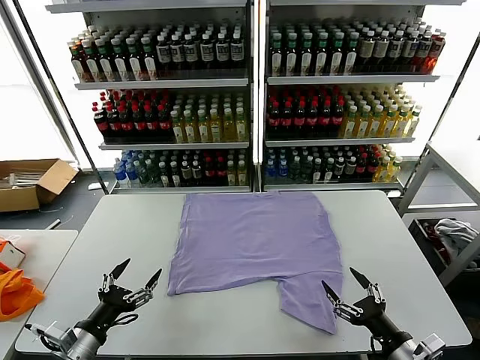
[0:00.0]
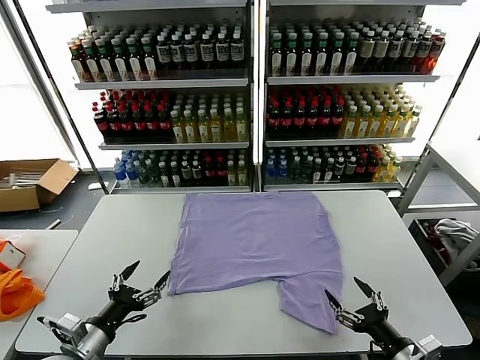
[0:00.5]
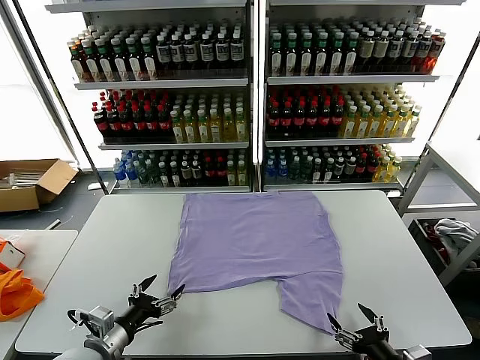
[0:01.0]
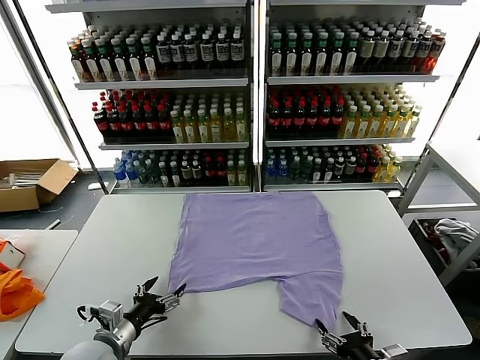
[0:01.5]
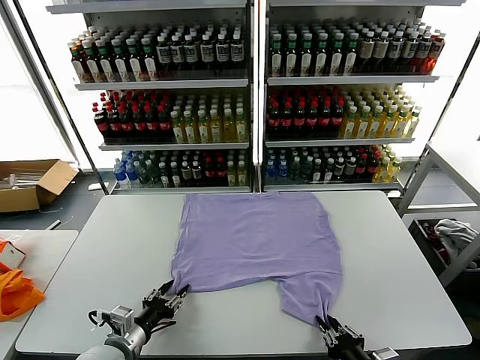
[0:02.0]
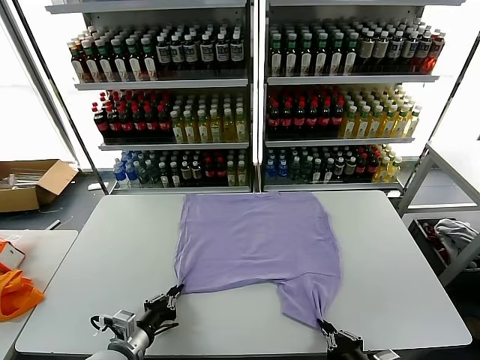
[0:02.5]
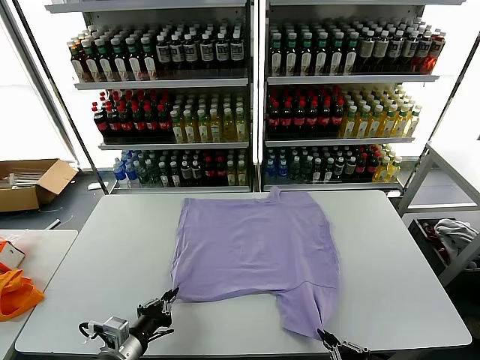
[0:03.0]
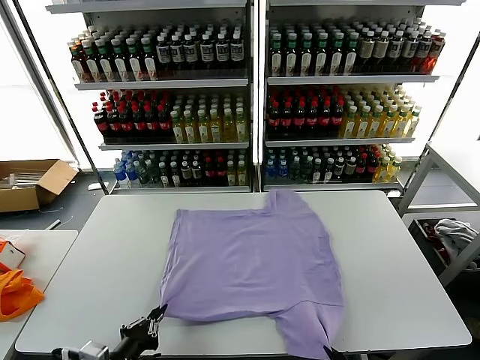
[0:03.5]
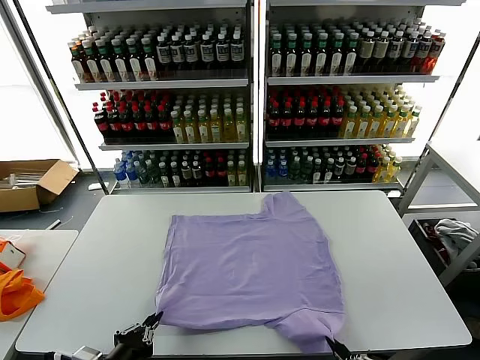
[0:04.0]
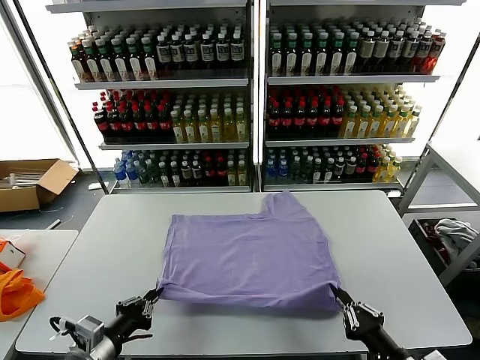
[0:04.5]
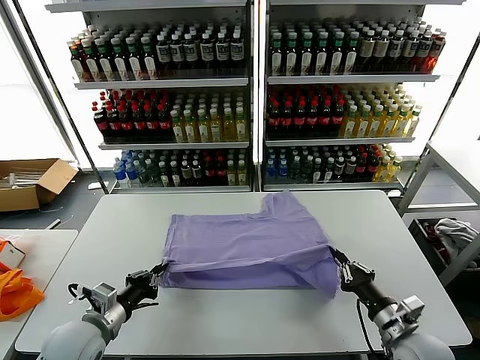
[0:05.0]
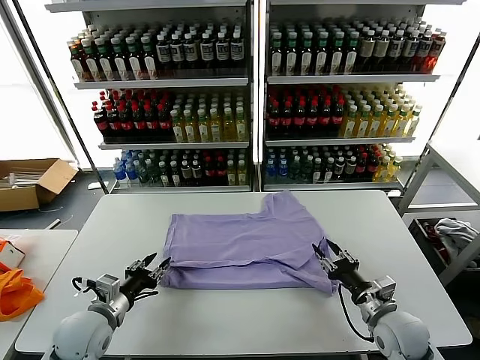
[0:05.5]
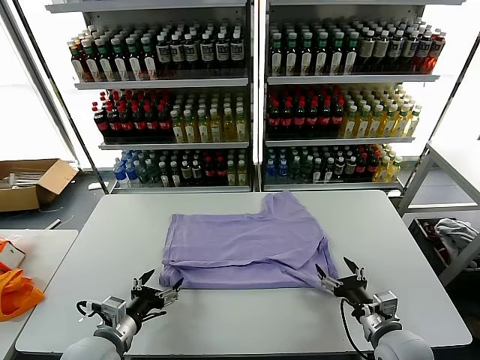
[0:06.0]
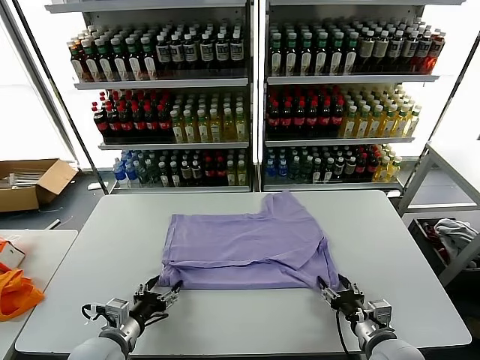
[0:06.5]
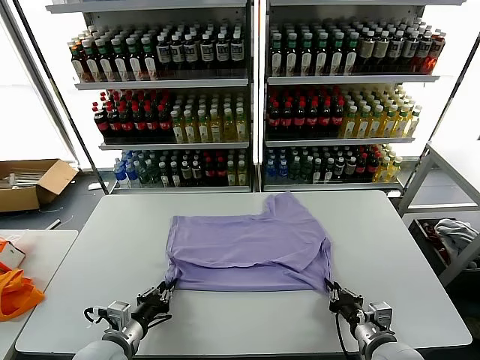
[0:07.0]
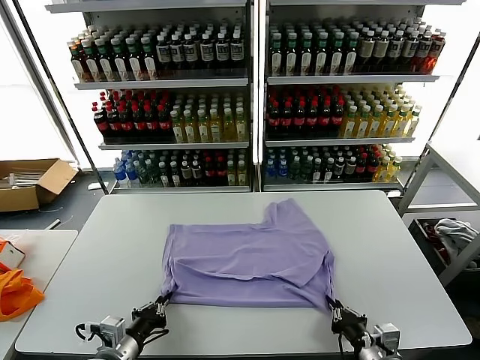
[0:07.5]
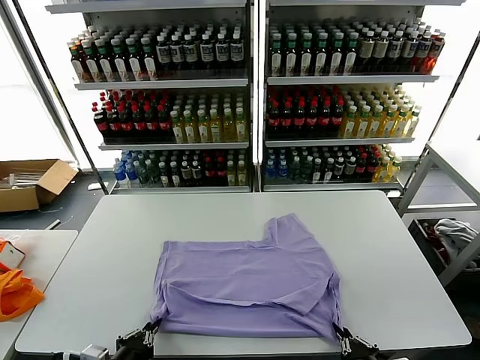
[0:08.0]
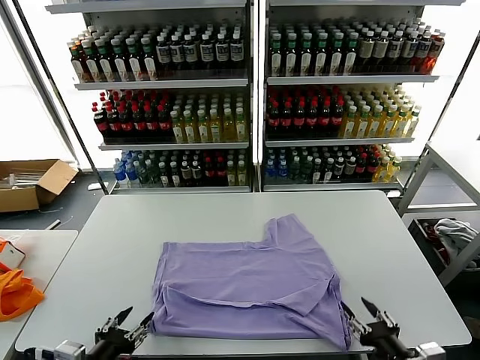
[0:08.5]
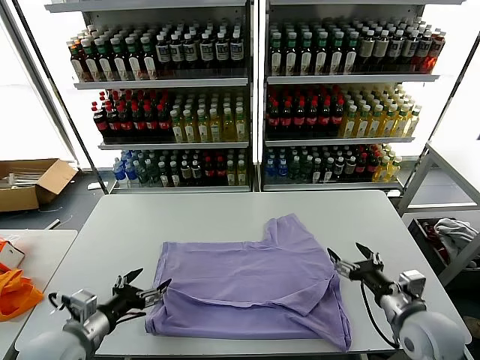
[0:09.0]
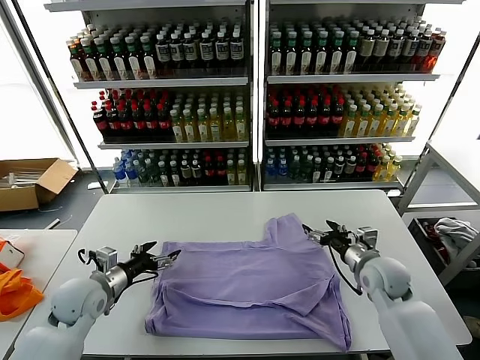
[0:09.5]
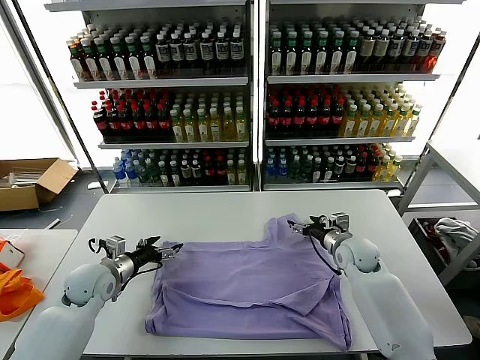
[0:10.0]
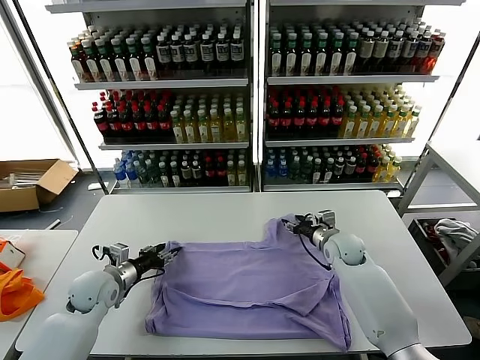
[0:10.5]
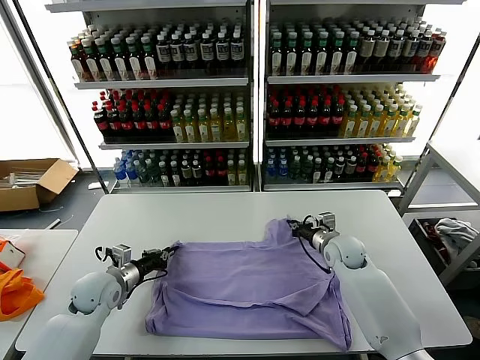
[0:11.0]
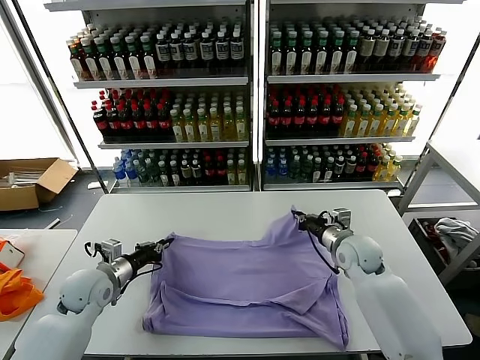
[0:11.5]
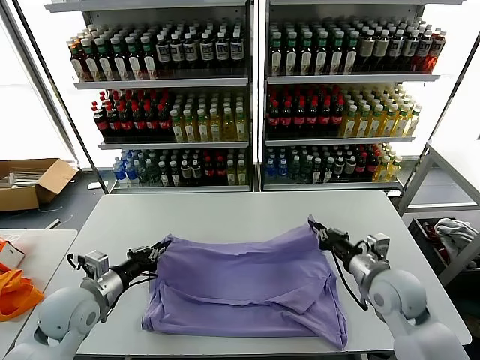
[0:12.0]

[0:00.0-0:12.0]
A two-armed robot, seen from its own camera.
Task of the whole recording: fold and organize the clothes.
Step, 0:00.0 to 0:03.0: use both grippers simultaneously to clamp the lower edge of the clothing fabric.
Step, 0:03.5 to 0:05.5: use both grippers to drag the lower edge of the fabric forward and fold it over the upper edge.
Step, 0:06.0 to 0:08.0: Drag the clothes downward with both gripper.
Step, 0:08.5 to 0:11.0: use both grippers simultaneously to clamp the upper edge of the clothing fabric.
0:02.0 to 0:04.0: The right gripper moves backward, some 5 cm, while the left gripper heads backward and upward, covering about 10 cm, and closes its fingers.
0:04.0 to 0:06.0: The right gripper heads forward, covering about 20 cm, and opens its fingers. The left gripper is displaced forward by some 10 cm, and opens its fingers.
0:06.0 to 0:08.0: The two grippers go roughly 10 cm backward. The right gripper closes up. The left gripper closes its fingers.
0:08.0 to 0:10.0: Both grippers move forward, approximately 30 cm. The right gripper opens; the left gripper opens its fingers.
0:10.0 to 0:12.0: The left gripper shifts roughly 10 cm backward, and closes up. Meanwhile the right gripper goes approximately 15 cm backward and upward, and closes its fingers.

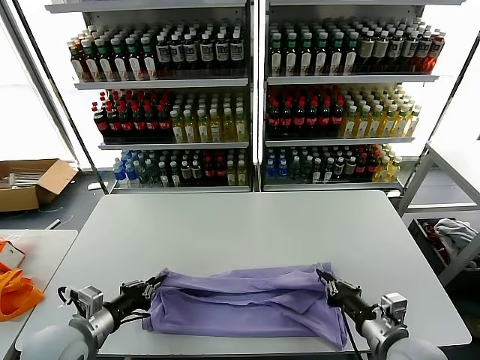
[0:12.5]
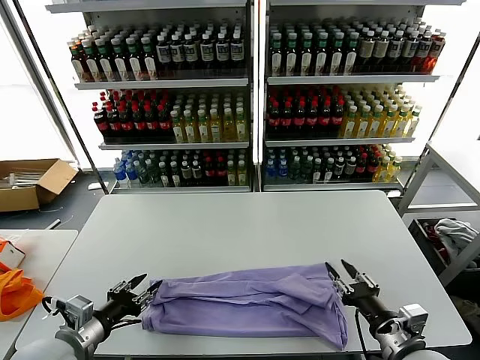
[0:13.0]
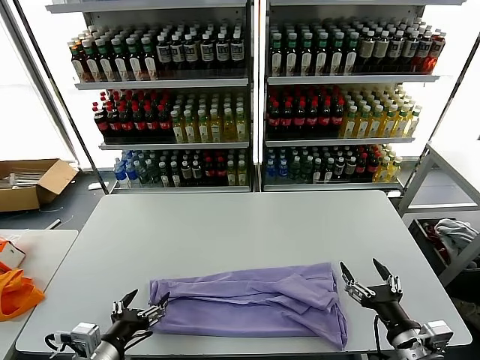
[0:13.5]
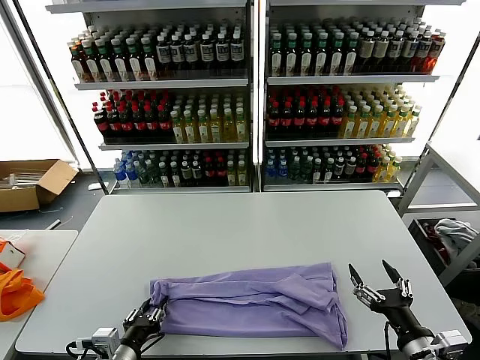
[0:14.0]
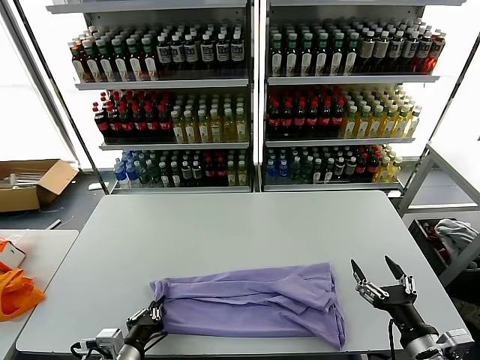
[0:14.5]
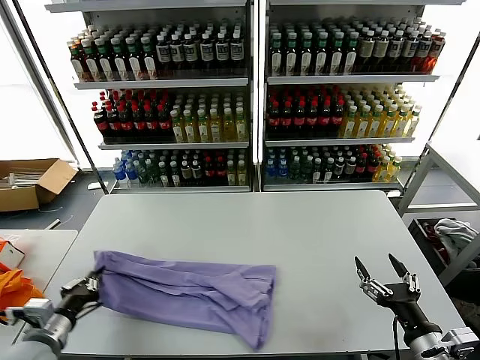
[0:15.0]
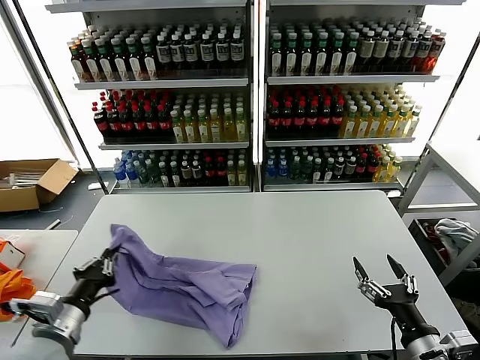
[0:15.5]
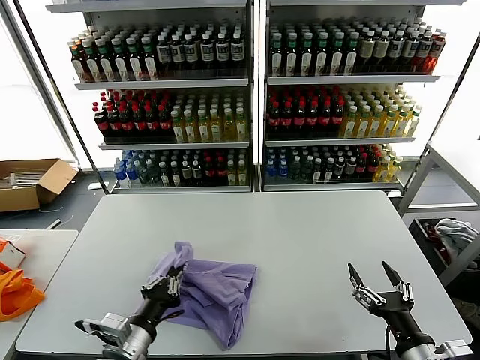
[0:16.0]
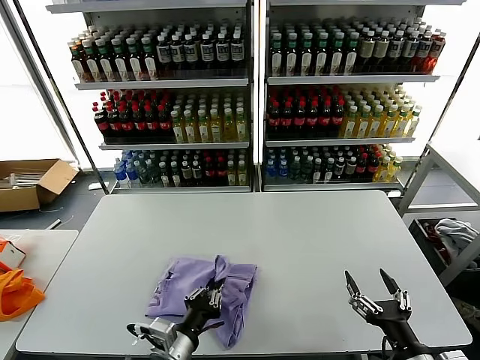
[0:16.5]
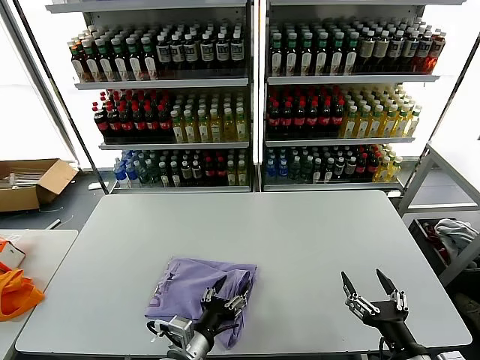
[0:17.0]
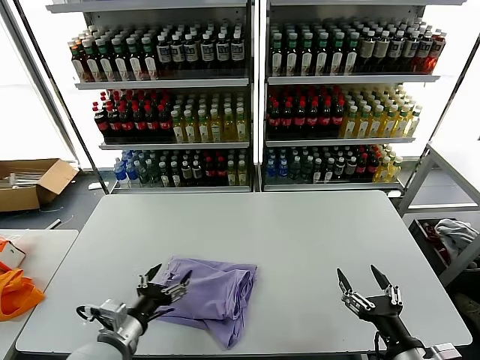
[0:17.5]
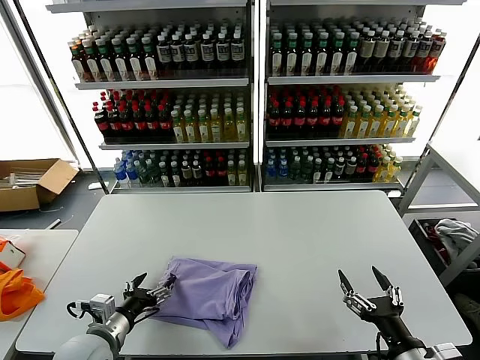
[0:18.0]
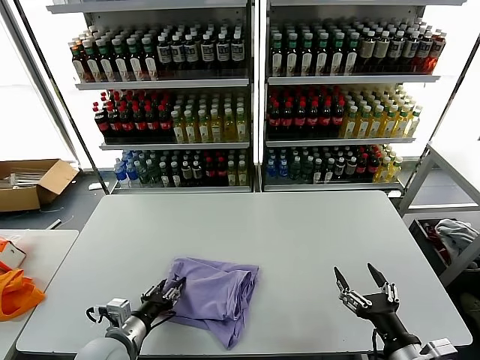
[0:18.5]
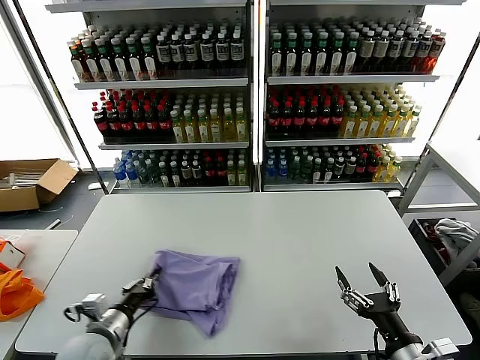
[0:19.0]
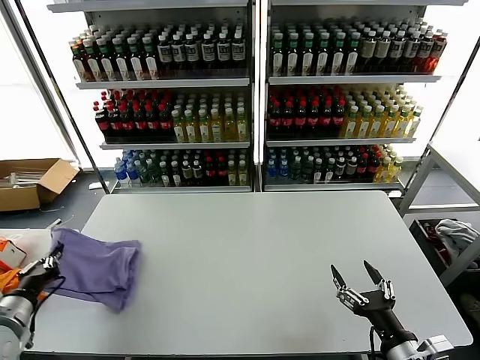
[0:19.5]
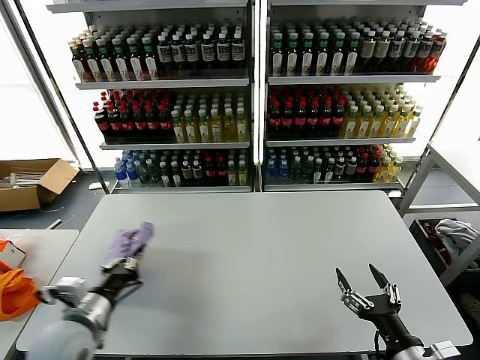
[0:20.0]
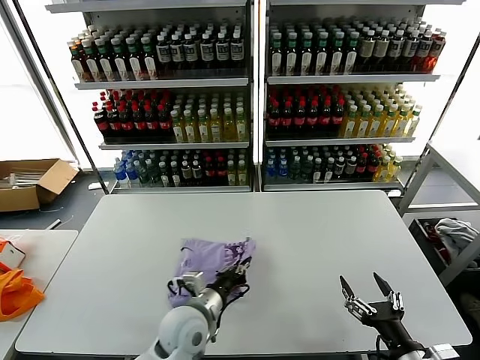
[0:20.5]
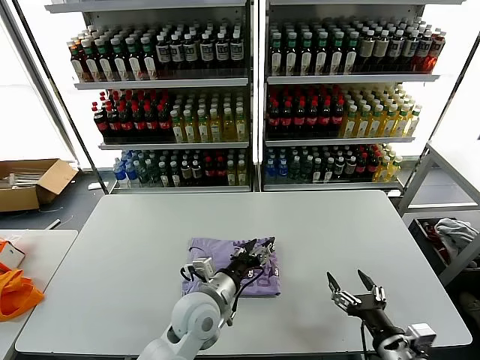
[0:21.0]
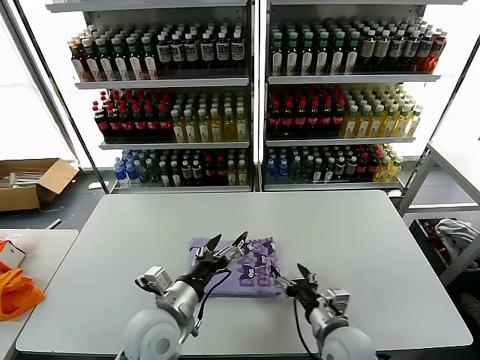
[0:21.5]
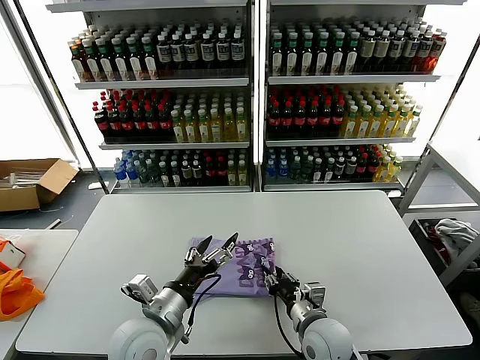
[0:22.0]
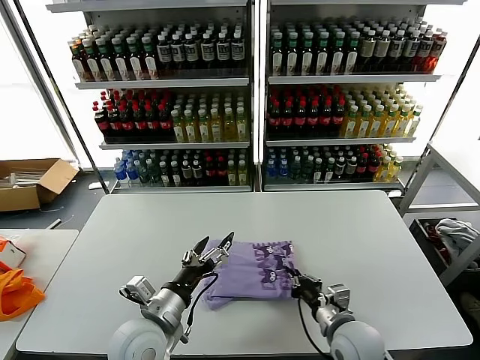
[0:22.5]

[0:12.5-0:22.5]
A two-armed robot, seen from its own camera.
Task of the whole recording: fold and organize the clothes.
Step, 0:13.5 to 0:14.5: use the left gripper to clamp the left edge of the fabric.
Step, 0:15.0 to 0:17.0: use the left gripper to drag the left edge of the fabric to the left and folds it over the right edge.
Step, 0:17.5 to 0:20.5: Flip the folded clothes over with left gripper.
0:12.5 to 0:14.5: The right gripper moves backward, about 5 cm, and opens; the left gripper heads to the right, downward and backward, covering about 10 cm, and opens, then closes again.
0:14.5 to 0:16.5: The left gripper moves to the right, approximately 10 cm.
0:16.5 to 0:18.5: The left gripper goes some 15 cm to the left and forward, and opens, then closes once more.
0:18.5 to 0:20.5: The left gripper heads to the right, covering some 15 cm, and closes up.
0:20.5 to 0:22.5: The left gripper heads upward and to the left, covering about 10 cm, and opens up. Meanwhile the right gripper moves forward, to the left and downward, some 15 cm, and closes.

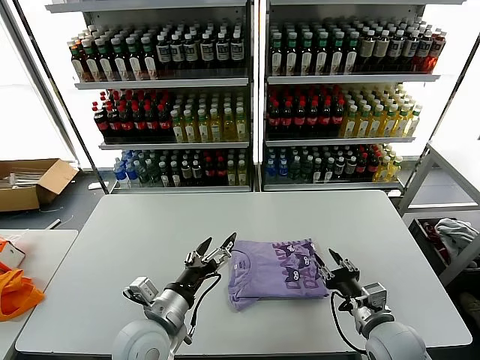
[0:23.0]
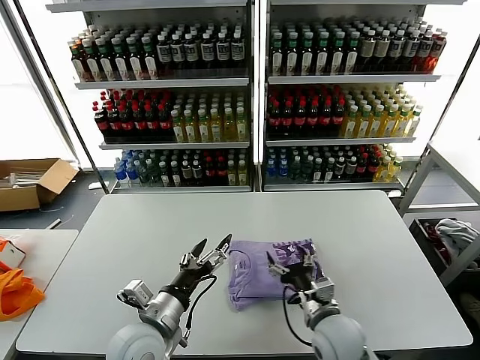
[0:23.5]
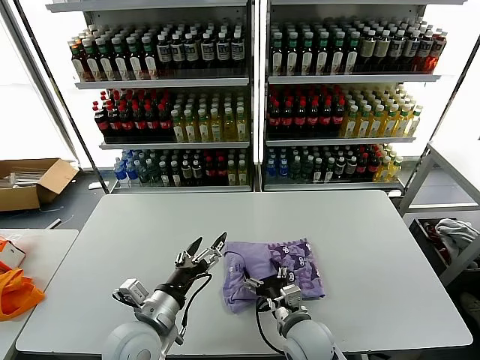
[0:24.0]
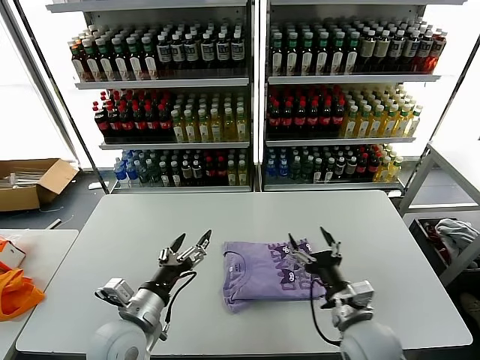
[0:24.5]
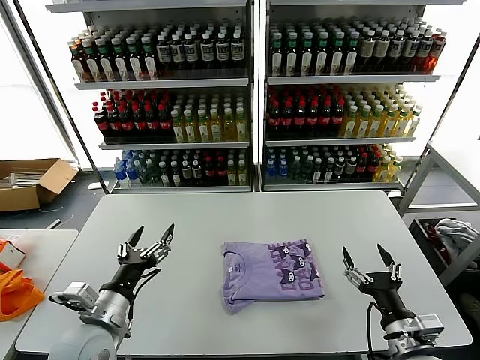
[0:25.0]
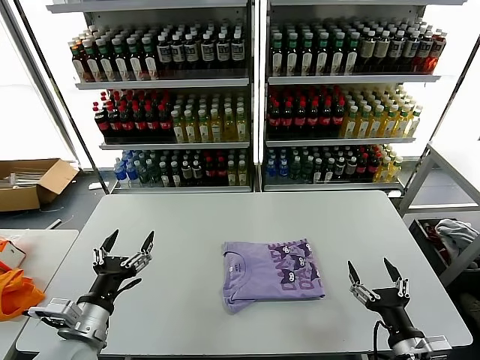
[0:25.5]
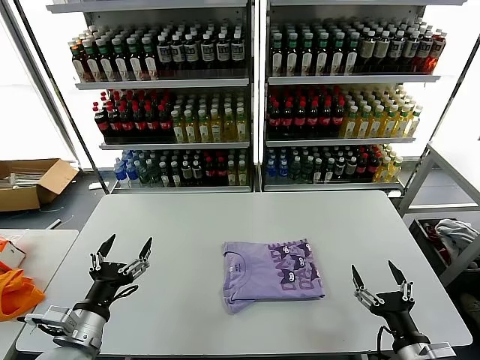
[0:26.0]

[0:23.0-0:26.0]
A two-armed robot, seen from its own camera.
Task of the whole recording: fold and organize the clothes.
0:23.0 to 0:24.5: The right gripper shifts approximately 5 cm to the left, and opens.
0:24.5 to 0:26.0: The right gripper goes about 15 cm to the right and backward. Meanwhile the left gripper shifts approximately 10 cm to the left.
